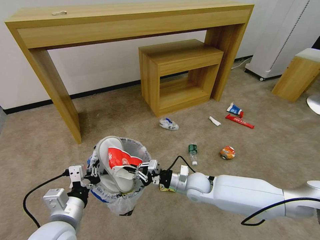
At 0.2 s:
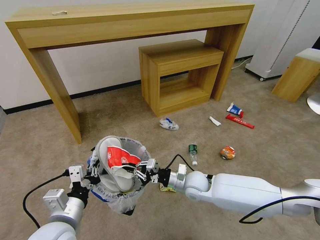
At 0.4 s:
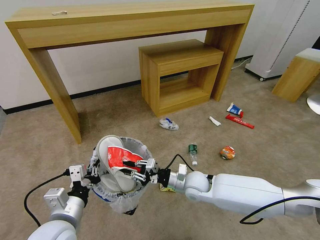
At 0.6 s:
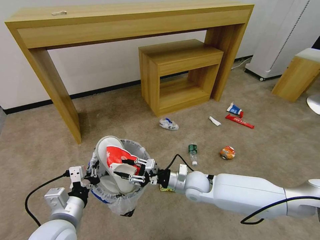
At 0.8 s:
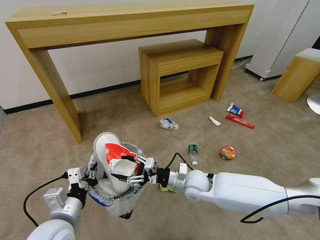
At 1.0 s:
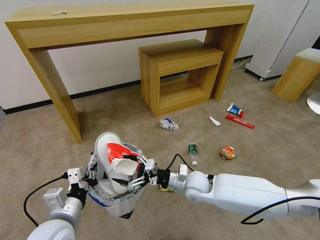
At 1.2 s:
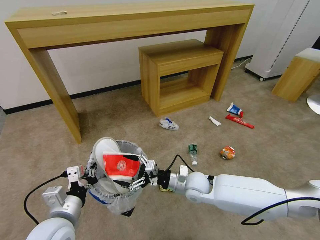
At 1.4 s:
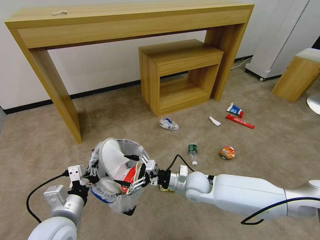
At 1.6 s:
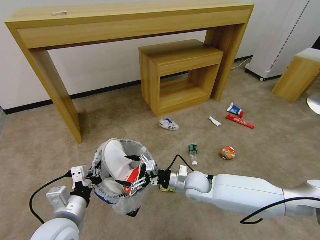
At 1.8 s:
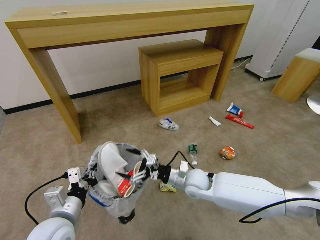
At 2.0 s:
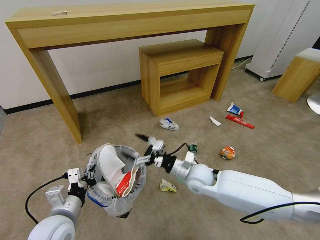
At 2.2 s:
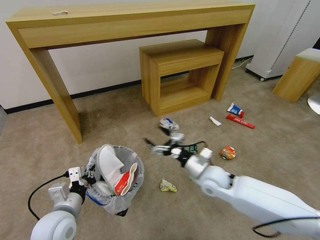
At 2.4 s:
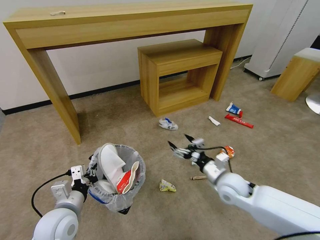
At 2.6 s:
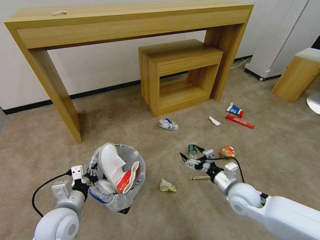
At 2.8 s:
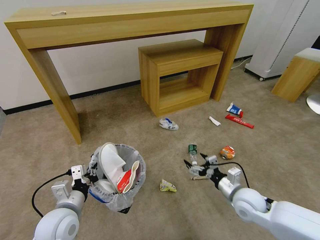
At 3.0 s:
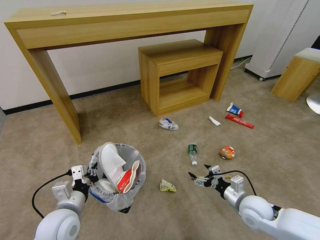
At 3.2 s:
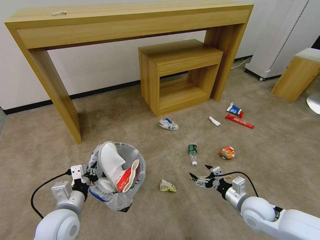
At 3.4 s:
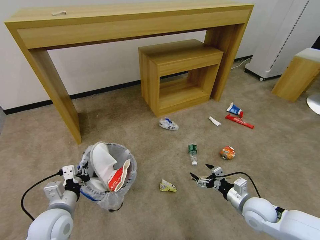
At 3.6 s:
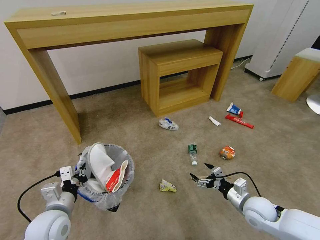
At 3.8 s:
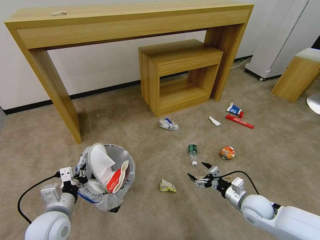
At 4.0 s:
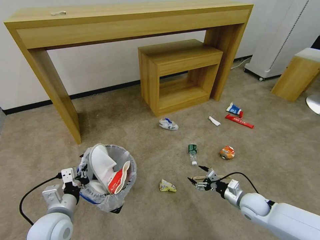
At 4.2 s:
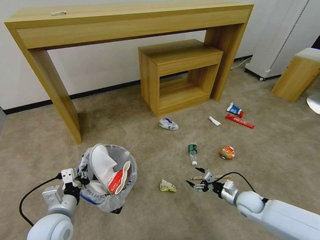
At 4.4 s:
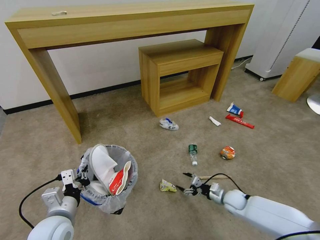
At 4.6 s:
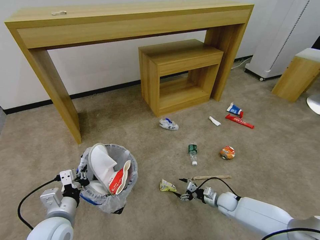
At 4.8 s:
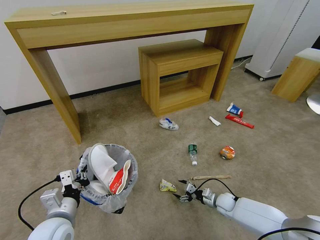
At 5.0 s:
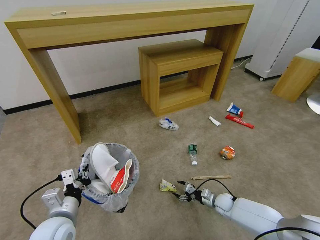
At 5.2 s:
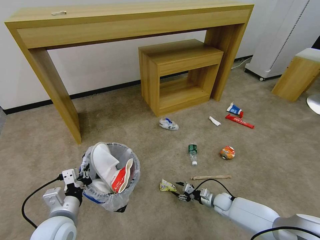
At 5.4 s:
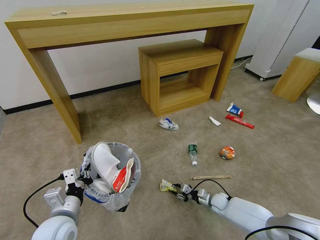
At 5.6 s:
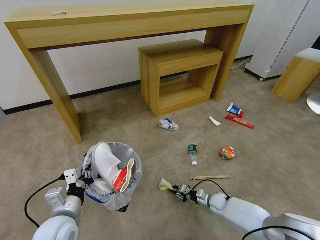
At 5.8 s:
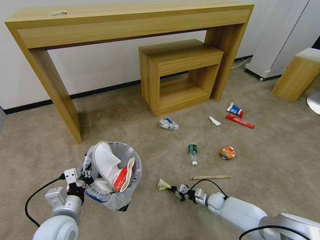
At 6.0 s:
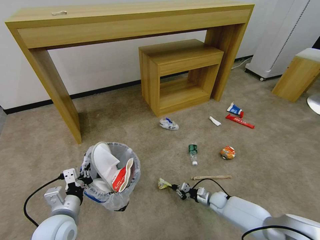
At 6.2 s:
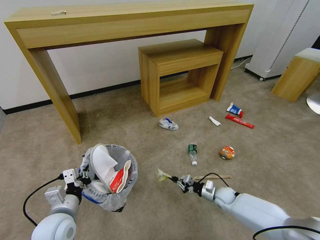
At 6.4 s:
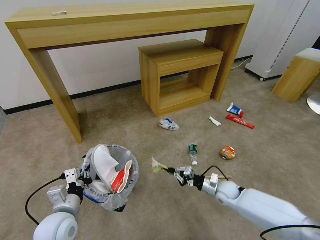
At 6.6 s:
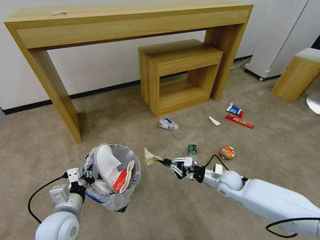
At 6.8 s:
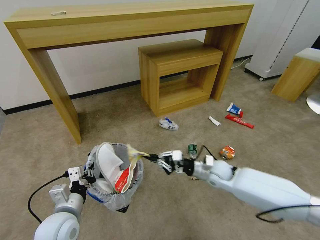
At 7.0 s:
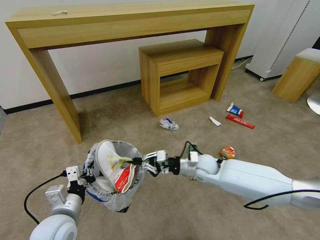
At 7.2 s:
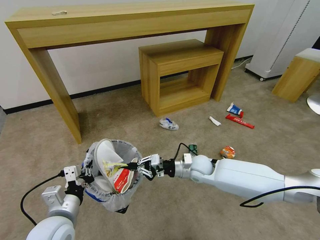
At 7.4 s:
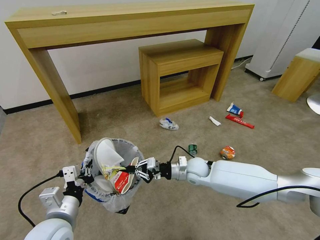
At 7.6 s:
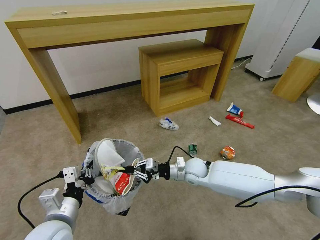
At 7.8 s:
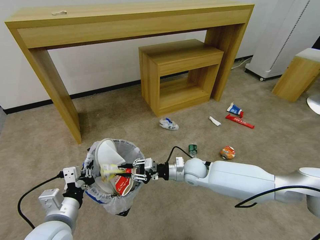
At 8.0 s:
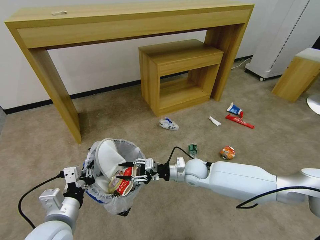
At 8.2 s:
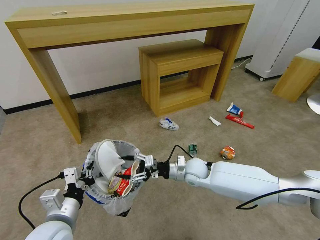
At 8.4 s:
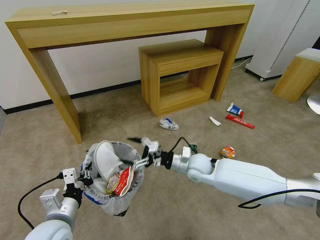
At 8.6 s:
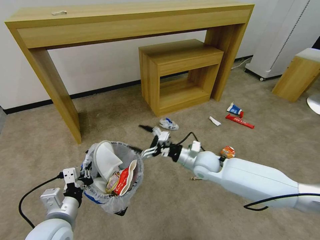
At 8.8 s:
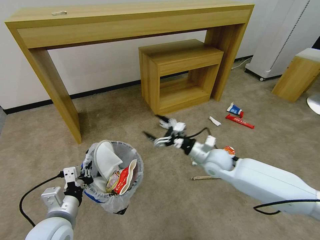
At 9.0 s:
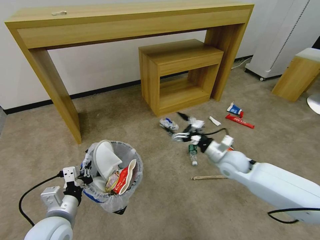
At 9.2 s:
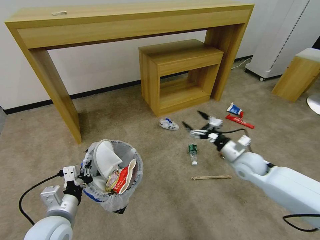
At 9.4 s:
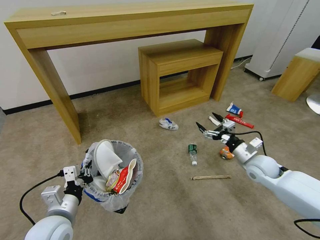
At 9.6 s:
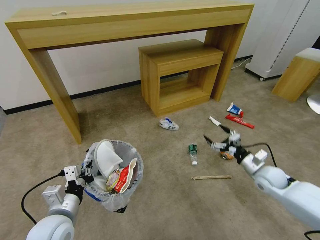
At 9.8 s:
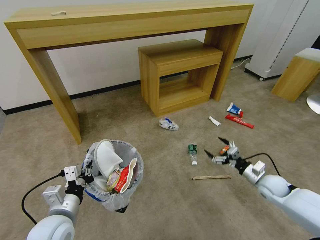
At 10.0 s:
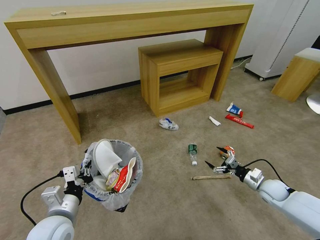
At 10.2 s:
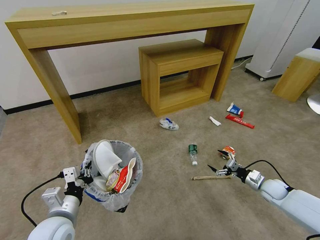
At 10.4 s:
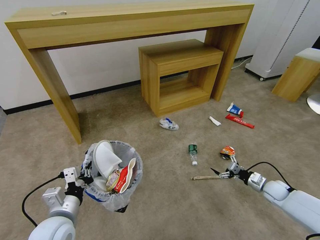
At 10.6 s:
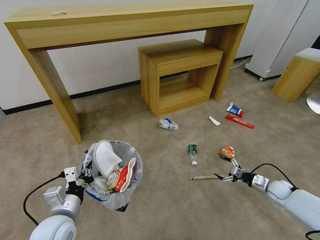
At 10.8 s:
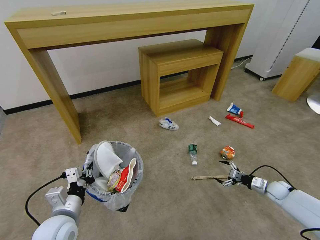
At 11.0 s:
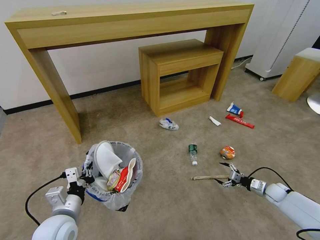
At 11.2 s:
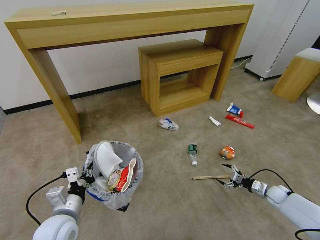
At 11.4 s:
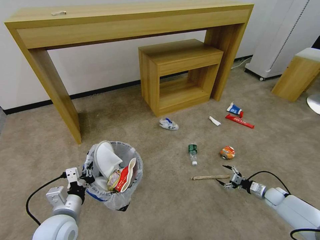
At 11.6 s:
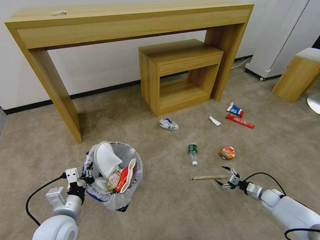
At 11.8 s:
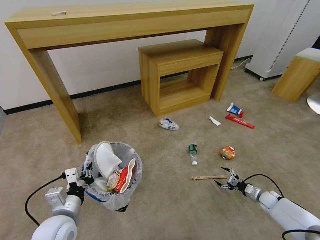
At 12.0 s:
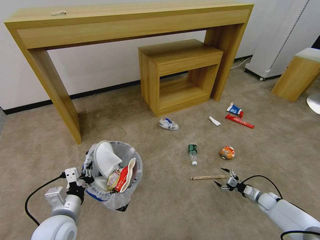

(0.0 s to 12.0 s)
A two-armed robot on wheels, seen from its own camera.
Task of the whole recording: Pick up the trash bin and place the garbage on the floor into it.
0.0 s - 1.6 s: The right gripper opens.
1.6 s - 3.0 s: The right gripper moves to the right and backward, roughly 20 cm. Meanwhile the left gripper moves approximately 5 cm.
3.0 s - 4.4 s: The right gripper travels downward and forward by about 15 cm.
4.4 s - 6.0 s: The right gripper shifts some 10 cm downward, and closes up.
6.0 s - 7.6 s: The right gripper moves upward and to the left, approximately 25 cm, while the left gripper shifts by about 5 cm.
7.6 s - 9.0 s: The right gripper heads to the right and upward, covering about 10 cm, and opens its fingers.
9.0 s - 10.4 s: The right gripper moves to the right and downward, approximately 30 cm.
10.4 s - 12.0 s: The right gripper is displaced downward by about 10 cm.

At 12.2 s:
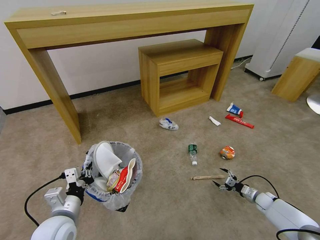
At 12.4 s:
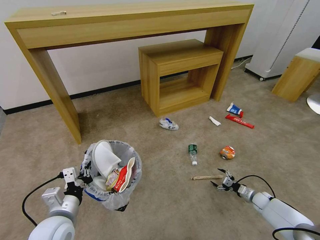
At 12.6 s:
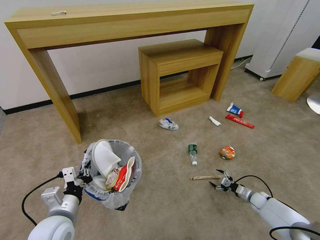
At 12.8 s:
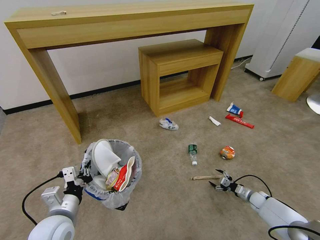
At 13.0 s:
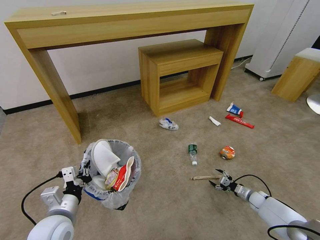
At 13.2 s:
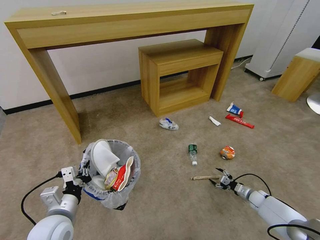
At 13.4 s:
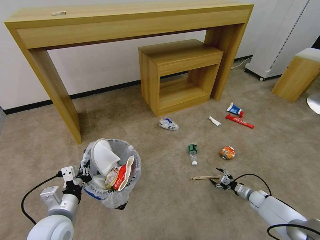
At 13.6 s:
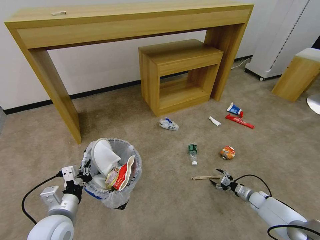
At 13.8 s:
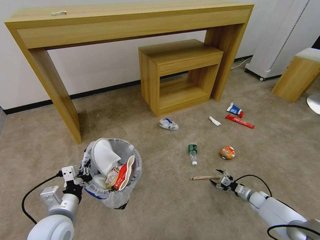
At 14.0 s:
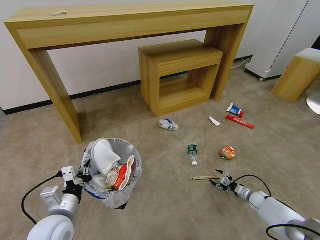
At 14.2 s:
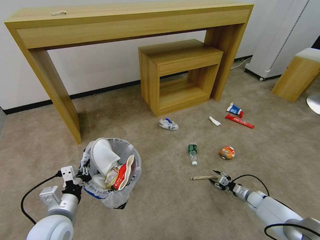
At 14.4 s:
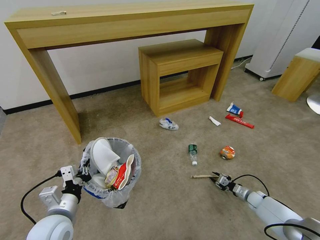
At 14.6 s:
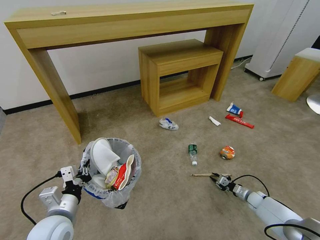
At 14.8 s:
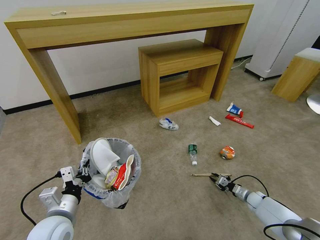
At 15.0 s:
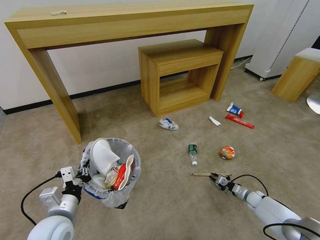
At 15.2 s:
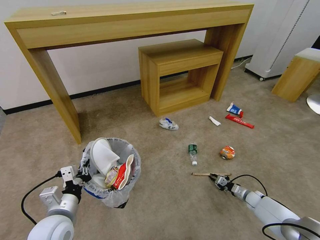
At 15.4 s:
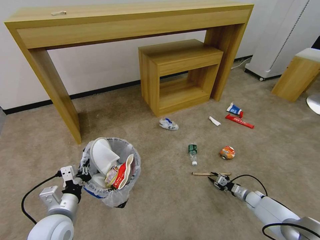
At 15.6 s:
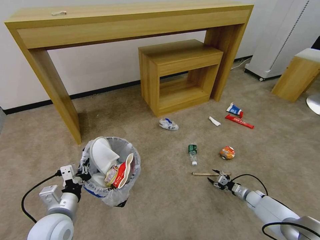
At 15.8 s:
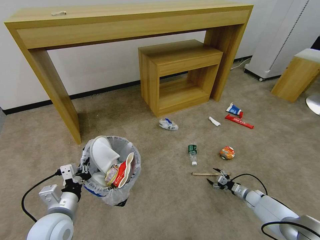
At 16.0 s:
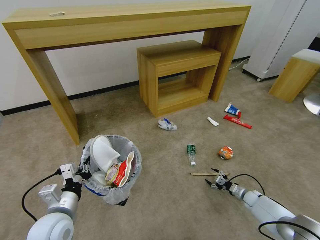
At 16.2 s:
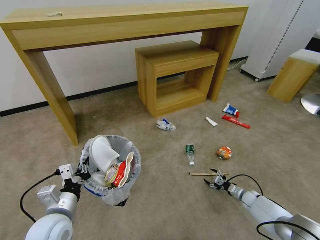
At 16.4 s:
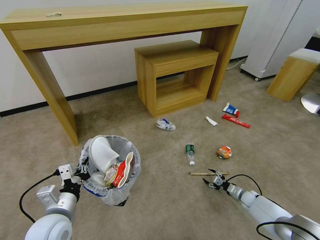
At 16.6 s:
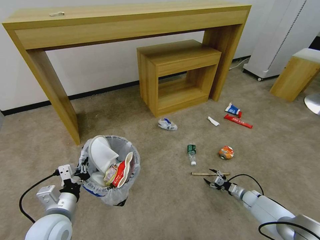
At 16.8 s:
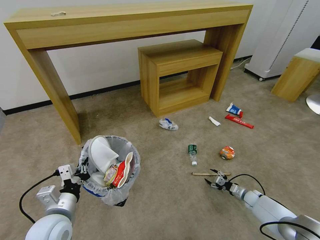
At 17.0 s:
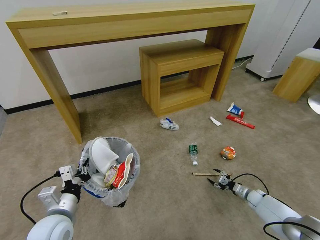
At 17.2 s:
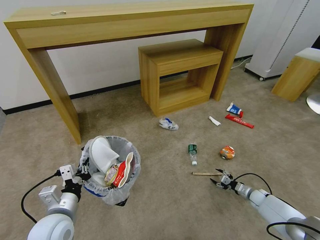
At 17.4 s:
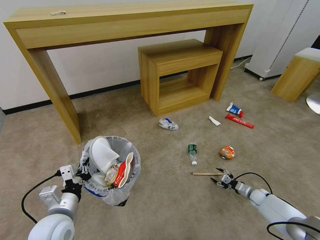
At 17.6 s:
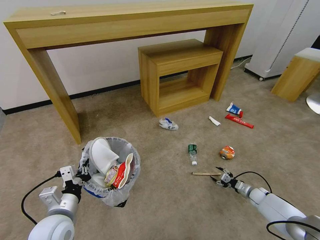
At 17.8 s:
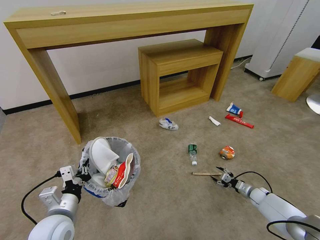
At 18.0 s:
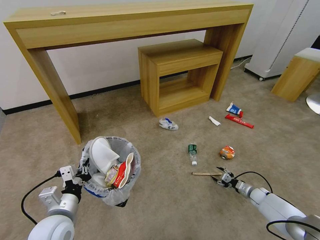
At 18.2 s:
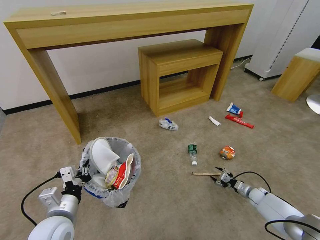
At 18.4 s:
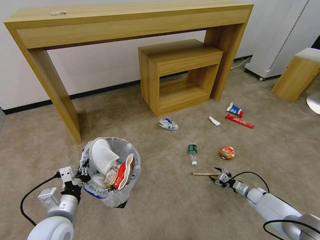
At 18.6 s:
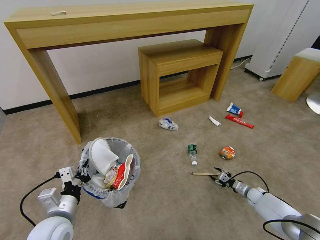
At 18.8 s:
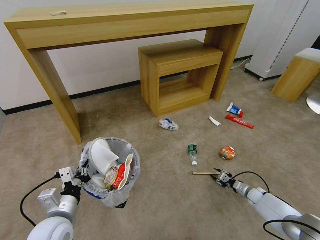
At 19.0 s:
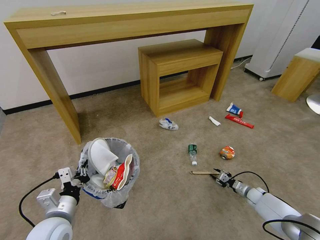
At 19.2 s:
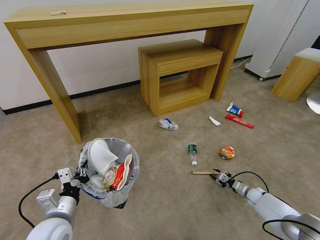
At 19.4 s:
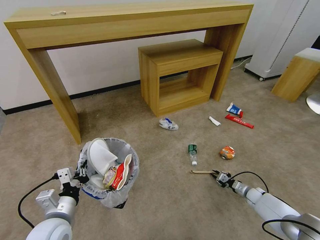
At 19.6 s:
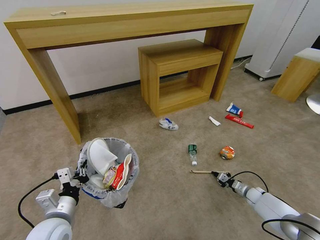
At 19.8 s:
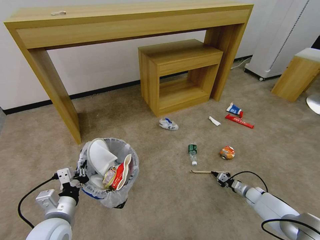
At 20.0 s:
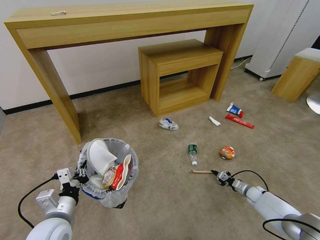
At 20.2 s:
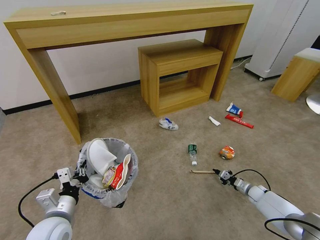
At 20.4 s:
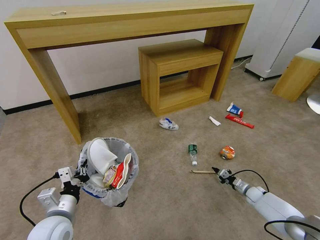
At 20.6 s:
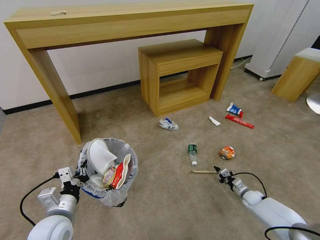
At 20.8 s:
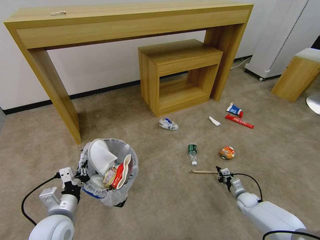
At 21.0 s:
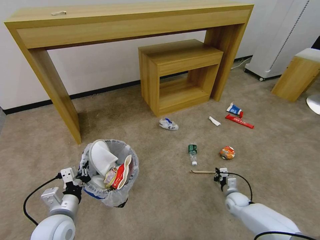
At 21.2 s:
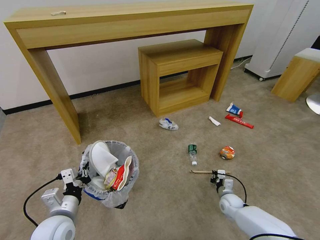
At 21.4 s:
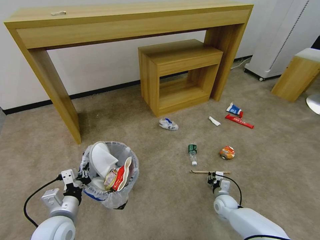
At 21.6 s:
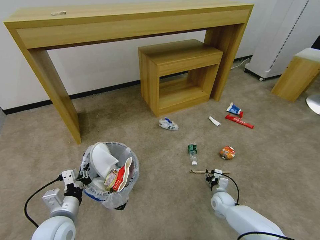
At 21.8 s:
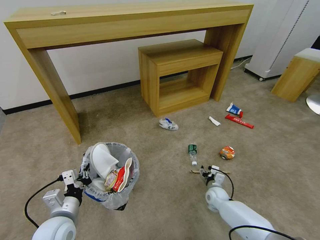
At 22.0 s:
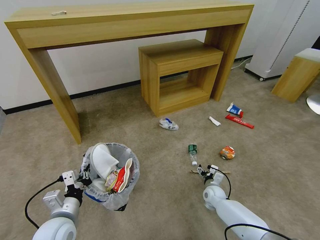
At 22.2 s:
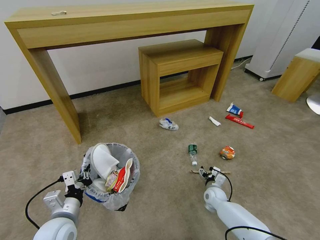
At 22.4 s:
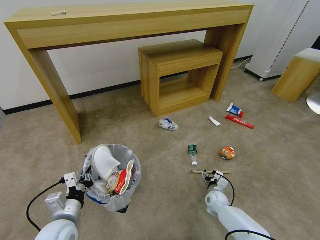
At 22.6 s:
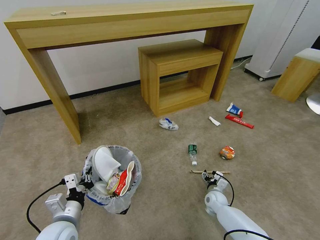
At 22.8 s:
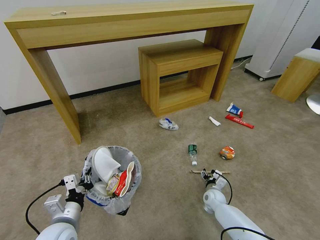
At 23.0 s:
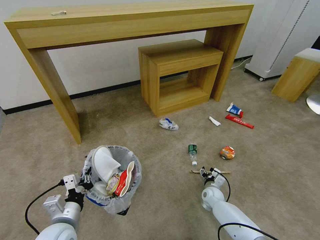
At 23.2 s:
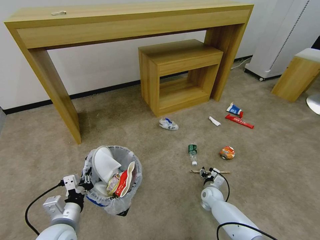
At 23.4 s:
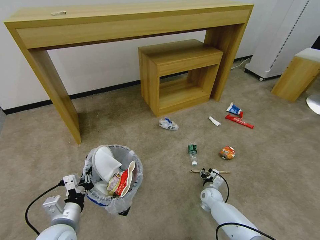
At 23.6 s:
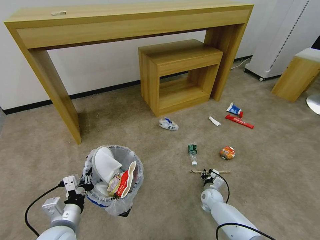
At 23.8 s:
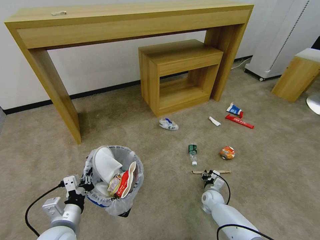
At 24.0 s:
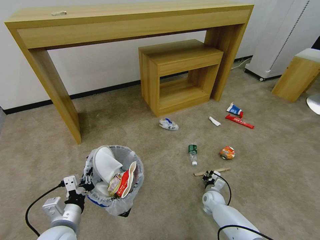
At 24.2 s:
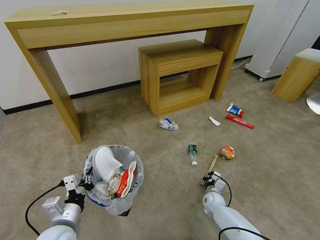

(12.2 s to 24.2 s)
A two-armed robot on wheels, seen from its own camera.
Task of the whole recording: Pick up the trash bin and place the garbage on the floor into it.
12.2 s - 13.8 s: The grippers make only small movements.
13.8 s - 15.2 s: The right gripper closes.
15.2 s - 16.6 s: The right gripper opens its fingers.
16.6 s - 18.2 s: The grippers move only a little.
18.2 s - 19.8 s: The right gripper closes its fingers.
19.8 s - 21.2 s: The right gripper travels to the left by some 15 cm.
21.2 s - 22.6 s: The right gripper goes approximately 5 cm to the left, and opens up.
22.6 s - 24.2 s: The right gripper closes its fingers.
